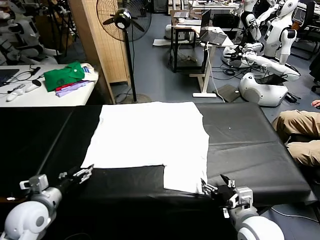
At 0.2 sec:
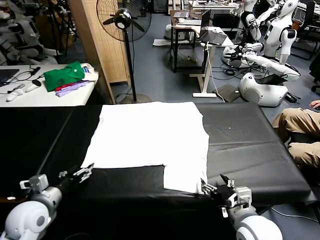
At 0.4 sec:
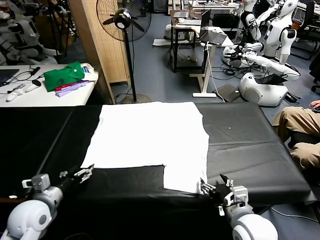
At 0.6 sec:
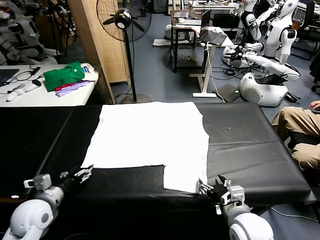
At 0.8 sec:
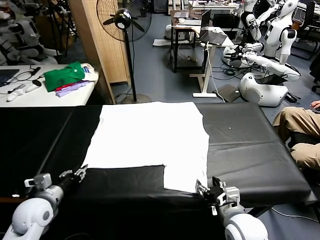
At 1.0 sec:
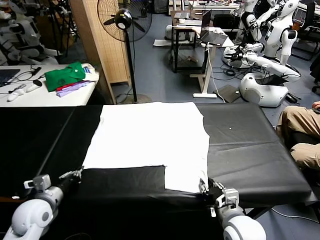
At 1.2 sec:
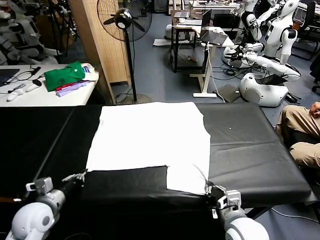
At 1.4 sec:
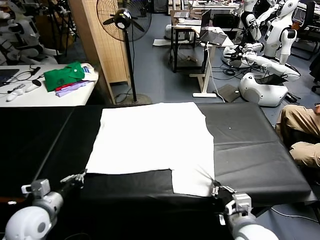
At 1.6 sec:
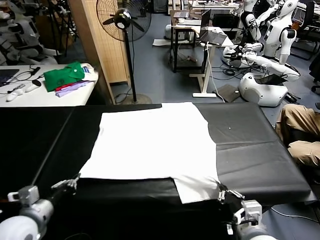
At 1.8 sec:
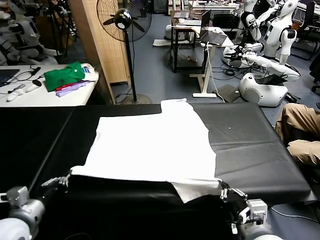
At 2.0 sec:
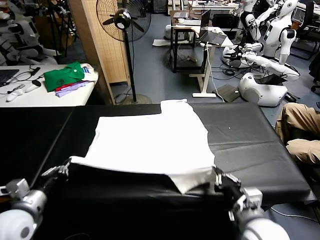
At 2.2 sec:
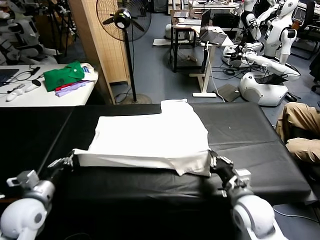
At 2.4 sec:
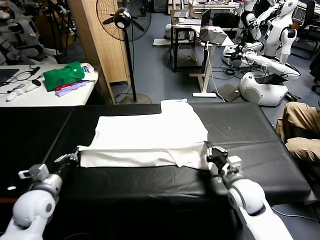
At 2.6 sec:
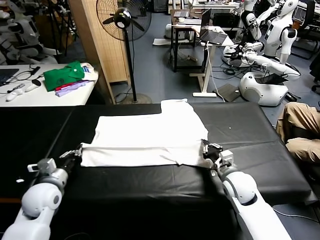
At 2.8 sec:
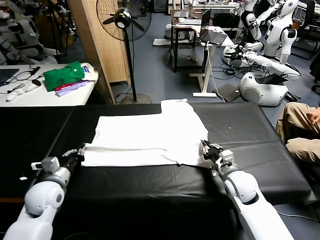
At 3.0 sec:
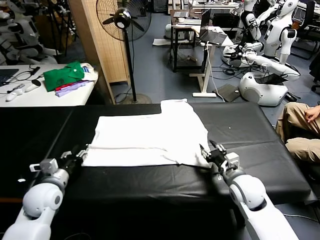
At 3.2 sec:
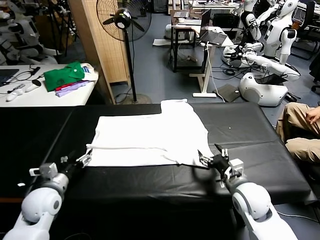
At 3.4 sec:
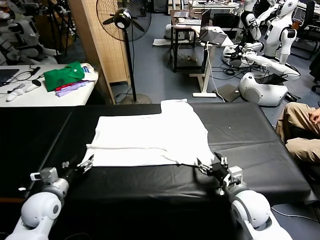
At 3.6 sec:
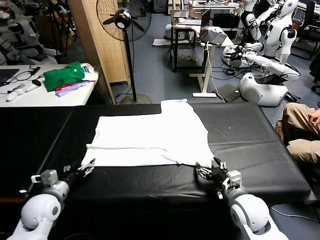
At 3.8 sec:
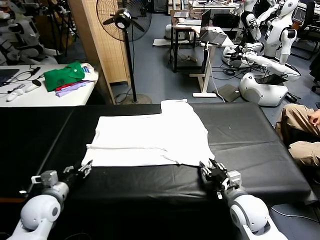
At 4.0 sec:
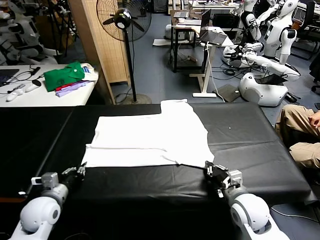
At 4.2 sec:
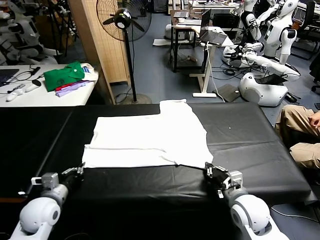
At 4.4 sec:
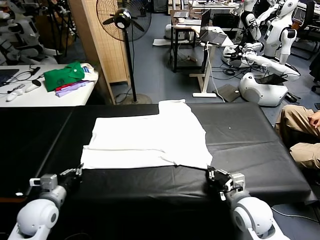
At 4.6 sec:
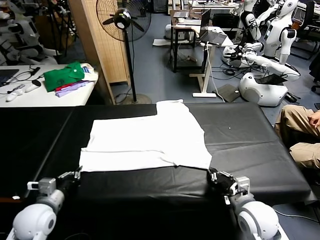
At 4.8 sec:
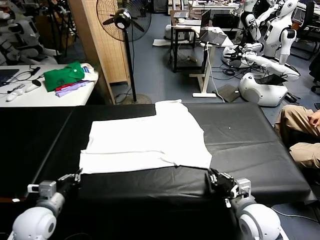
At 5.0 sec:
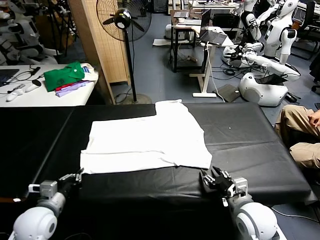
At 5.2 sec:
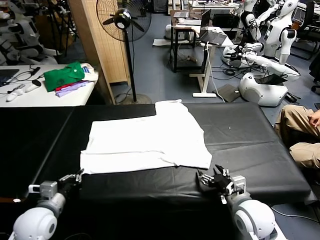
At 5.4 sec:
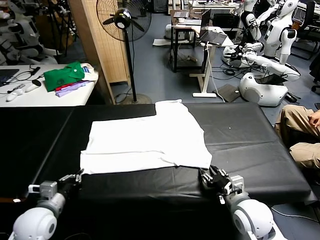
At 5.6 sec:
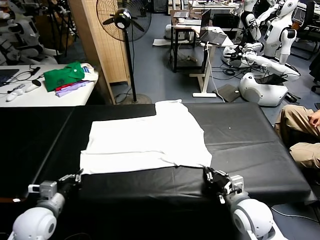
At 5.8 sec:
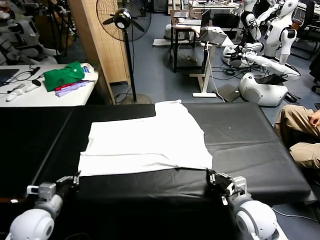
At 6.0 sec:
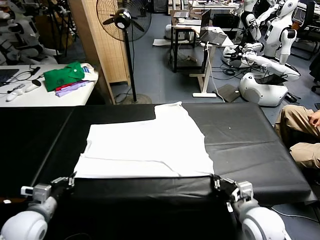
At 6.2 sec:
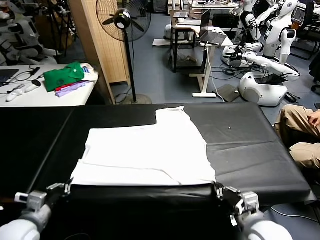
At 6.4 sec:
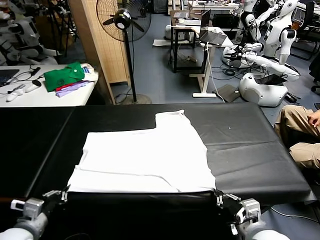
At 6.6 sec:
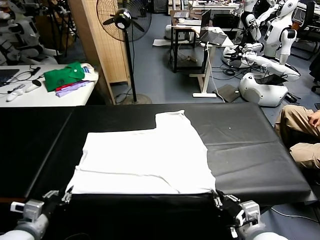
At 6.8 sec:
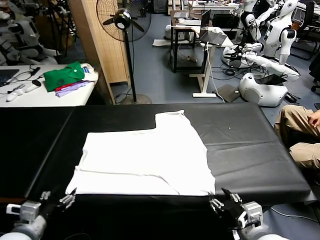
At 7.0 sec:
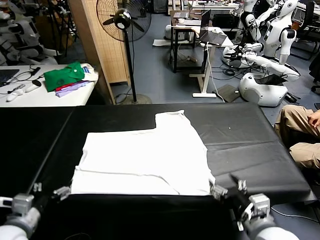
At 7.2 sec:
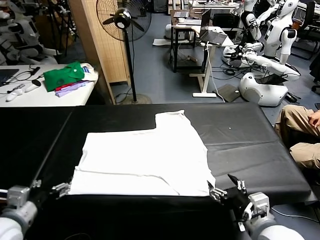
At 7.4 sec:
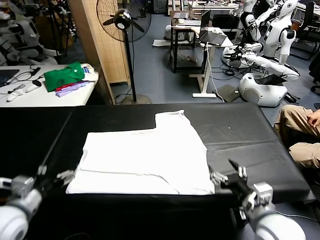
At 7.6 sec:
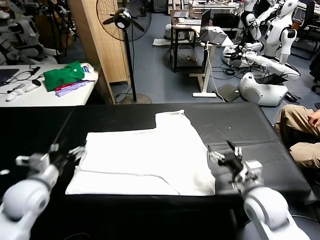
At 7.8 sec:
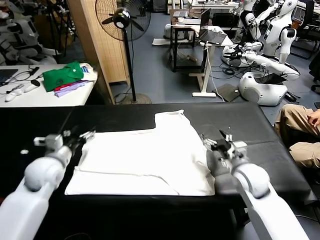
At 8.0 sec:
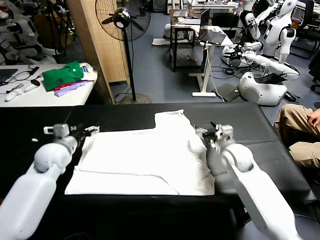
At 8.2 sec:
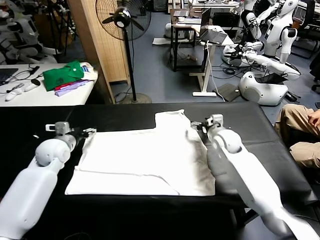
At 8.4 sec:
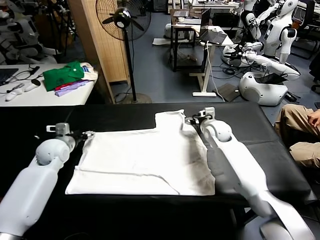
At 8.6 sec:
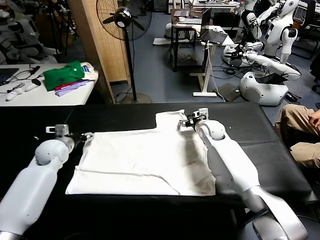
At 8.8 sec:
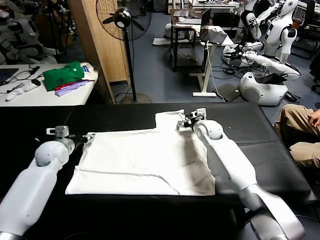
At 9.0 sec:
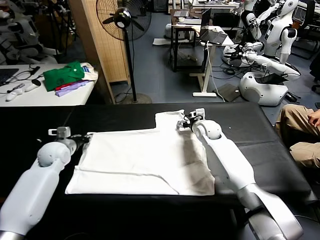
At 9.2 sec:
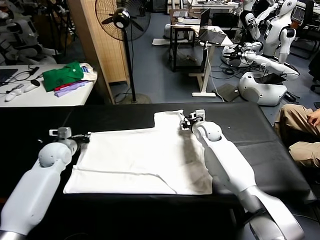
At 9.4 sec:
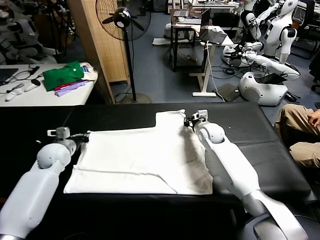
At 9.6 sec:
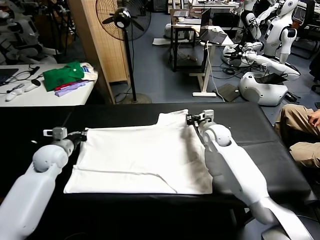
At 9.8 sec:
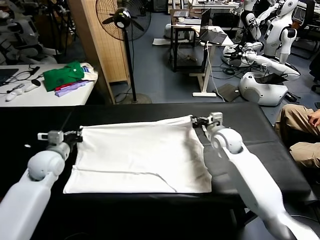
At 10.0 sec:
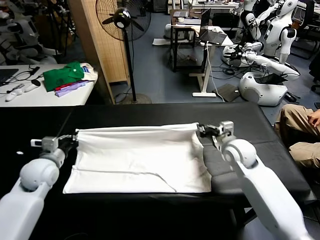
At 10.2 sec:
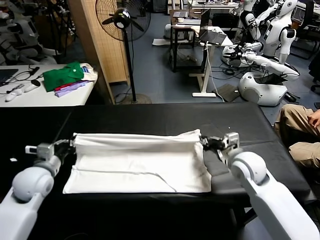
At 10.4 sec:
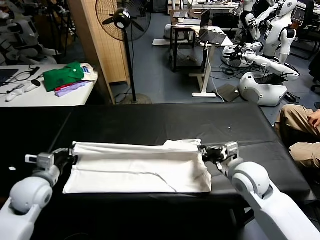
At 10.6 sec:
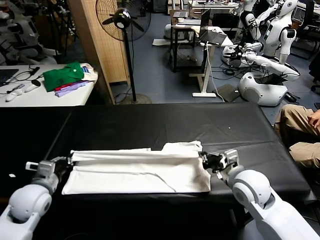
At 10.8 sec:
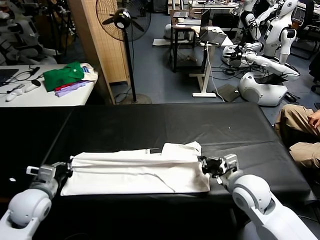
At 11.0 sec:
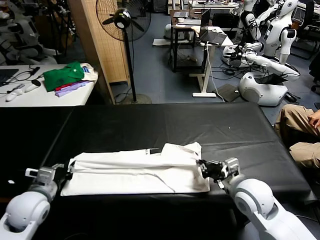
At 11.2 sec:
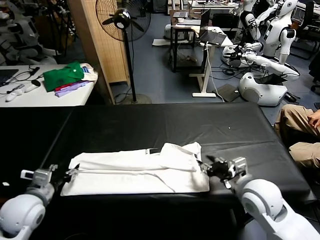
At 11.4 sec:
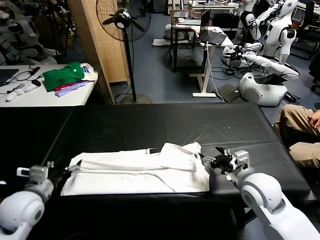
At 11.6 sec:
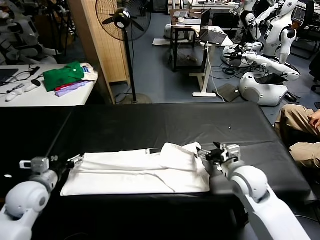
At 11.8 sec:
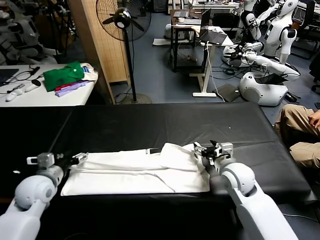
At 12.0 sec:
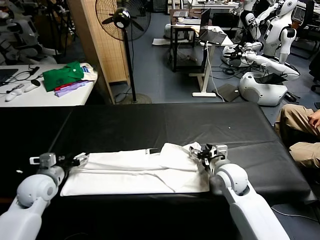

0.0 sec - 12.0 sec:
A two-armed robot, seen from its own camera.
Task of the whole recording: fold and organize the clothes.
Step, 0.0 sec - 1.2 sec: use both grippers simultaneously to clamp the lower edge of the clothing fabric.
Step, 1.4 sec - 2.8 sec: use both grippers to drag the lower edge of the fabric forward and fold it over the upper edge.
Step, 3.0 sec - 6.6 sec: Drag the clothes downward with both gripper.
Step, 6.8 sec - 9.2 sec: use both grippers simultaneously to clamp the upper edge of the clothing fabric.
Step, 9.4 sec - 11.0 sec: use both grippers to drag the upper edge of the fabric backward and fold it over the lower edge.
1.6 sec - 3.0 sec: The left gripper moves forward, roughly 10 cm, and opens up, while the right gripper is displaced forward and downward by roughly 15 cm, and opens up.
3.0 sec - 4.4 sec: The right gripper moves backward, some 5 cm, and closes. The left gripper closes.
4.4 sec - 6.0 sec: The right gripper moves backward, about 5 cm, and opens, then closes once more.
6.0 sec - 7.6 sec: The left gripper moves upward and forward, roughly 10 cm, and opens up, while the right gripper shifts about 15 cm forward, and opens its fingers.
7.6 sec - 9.0 sec: Both grippers move forward, approximately 20 cm. The left gripper closes its fingers.
9.0 sec - 10.4 sec: The left gripper travels backward by approximately 15 cm. The right gripper shifts some 25 cm backward, and closes up.
10.4 sec - 12.0 sec: The left gripper opens. The right gripper goes approximately 5 cm downward, and opens.

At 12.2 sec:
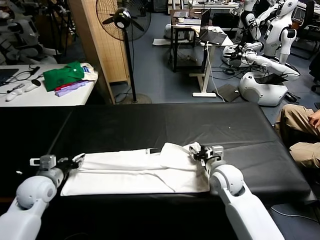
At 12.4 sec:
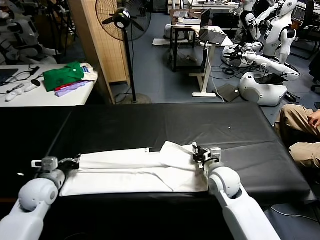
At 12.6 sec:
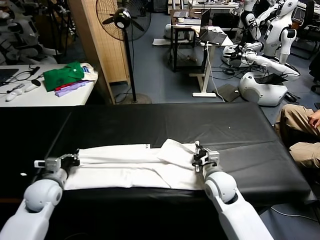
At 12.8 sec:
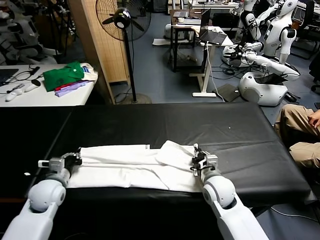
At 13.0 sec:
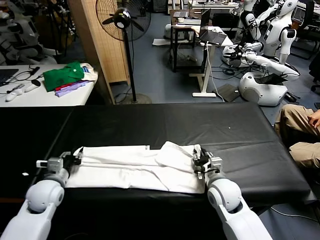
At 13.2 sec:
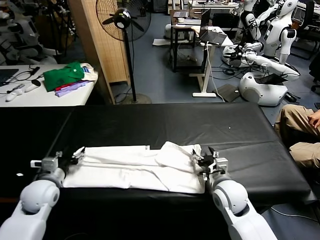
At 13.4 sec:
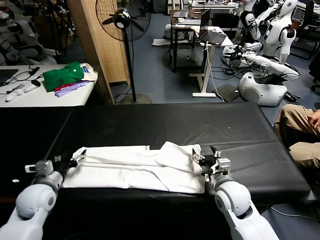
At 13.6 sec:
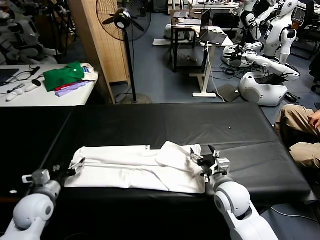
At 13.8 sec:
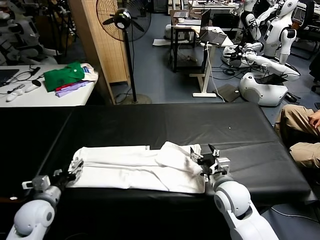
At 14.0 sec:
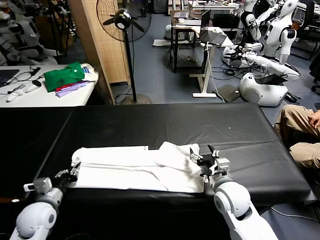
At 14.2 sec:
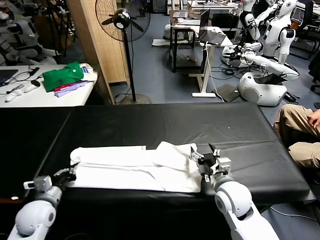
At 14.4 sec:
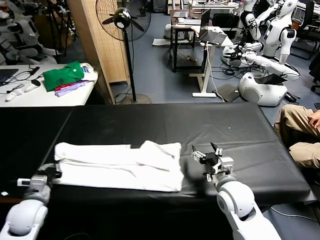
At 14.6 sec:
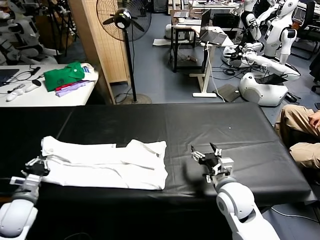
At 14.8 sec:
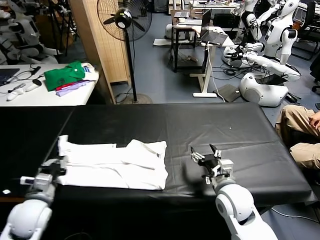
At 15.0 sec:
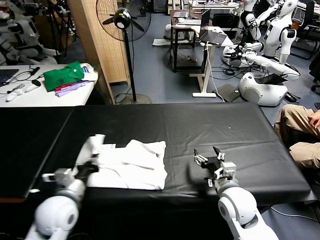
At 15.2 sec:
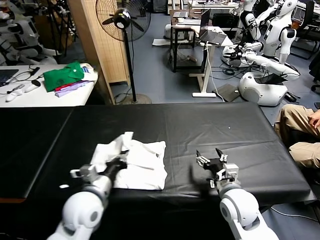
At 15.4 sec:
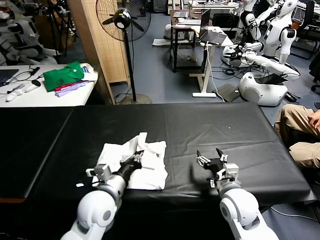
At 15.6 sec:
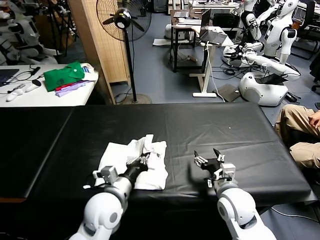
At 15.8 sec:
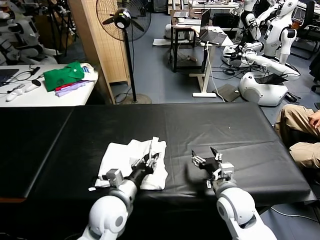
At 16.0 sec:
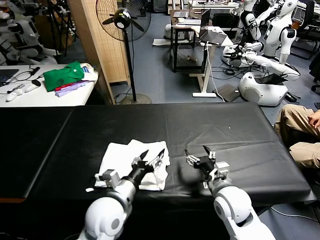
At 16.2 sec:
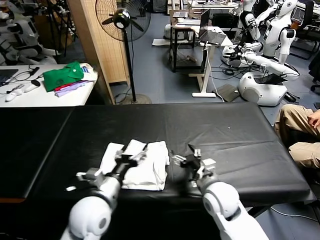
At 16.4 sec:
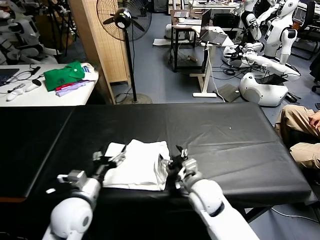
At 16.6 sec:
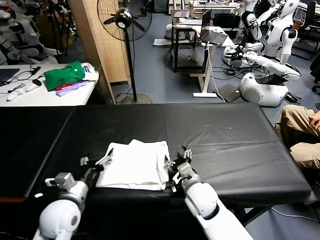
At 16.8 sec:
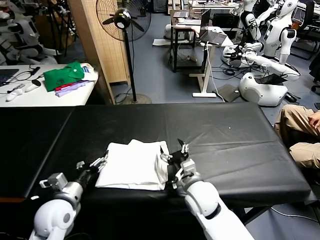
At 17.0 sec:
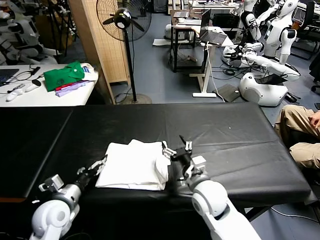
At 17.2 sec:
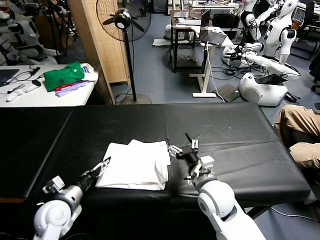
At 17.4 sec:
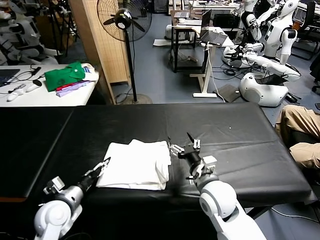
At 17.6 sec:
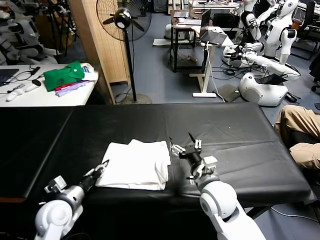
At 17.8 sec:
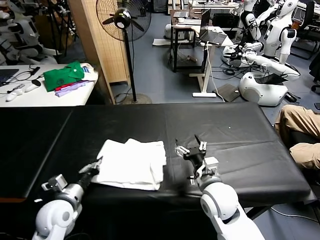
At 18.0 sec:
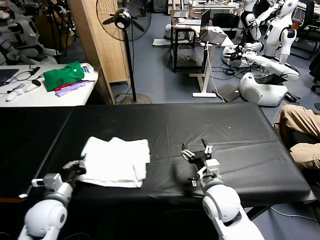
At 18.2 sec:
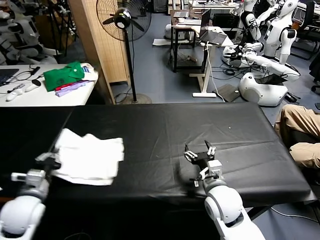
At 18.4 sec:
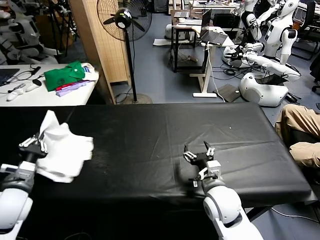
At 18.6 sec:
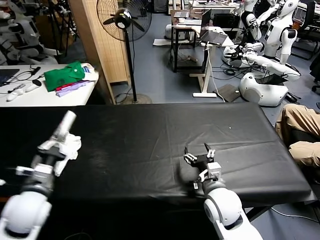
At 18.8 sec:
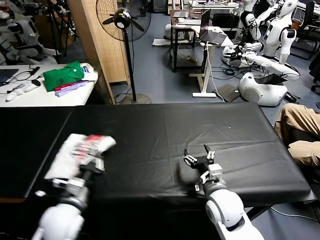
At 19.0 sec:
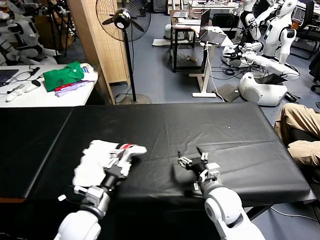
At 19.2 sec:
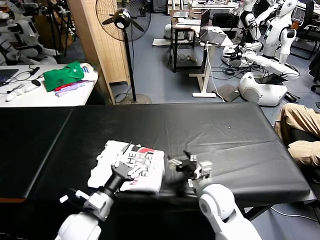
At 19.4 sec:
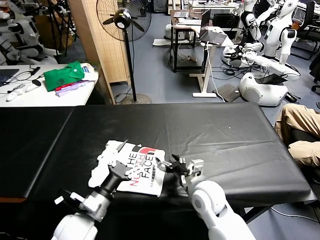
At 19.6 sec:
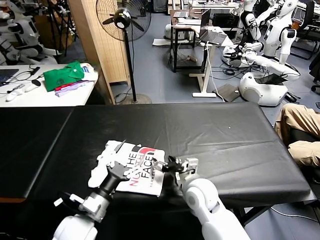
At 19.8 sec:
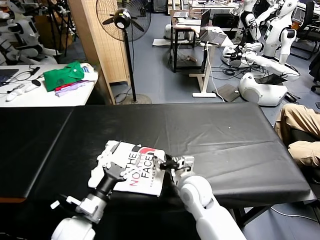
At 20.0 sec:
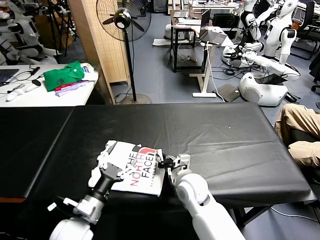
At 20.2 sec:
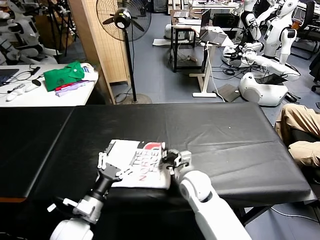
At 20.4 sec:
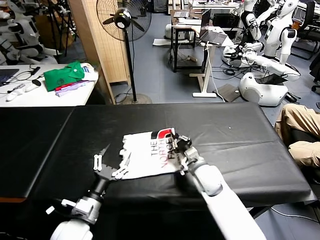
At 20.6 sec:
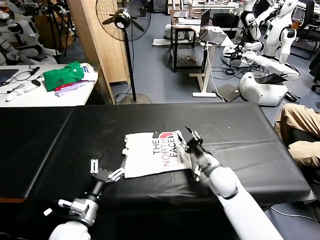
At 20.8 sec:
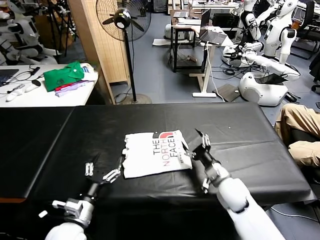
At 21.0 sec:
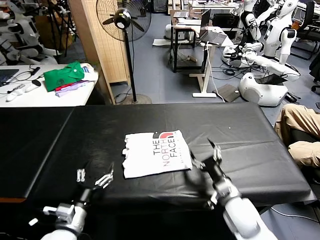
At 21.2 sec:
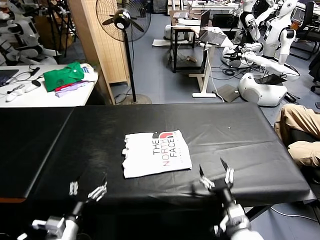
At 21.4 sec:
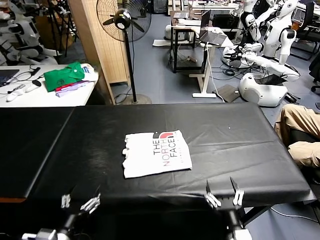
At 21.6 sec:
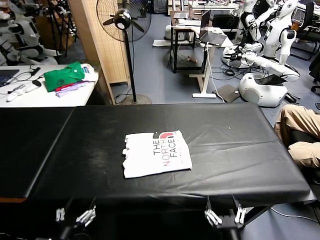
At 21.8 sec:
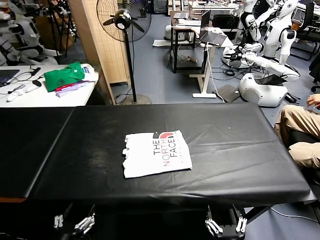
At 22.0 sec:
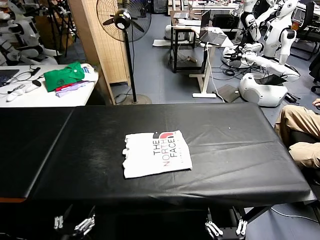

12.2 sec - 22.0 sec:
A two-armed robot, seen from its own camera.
Task of the whole recording: fold and organize the clothes.
Step, 12.2 sec - 14.0 sec: use the left gripper to clamp the left edge of the fabric.
Step, 14.4 sec - 15.8 sec: use the left gripper to drag the left edge of the fabric to the left and folds it over the right edge.
Step, 16.0 sec - 19.0 sec: Flip the folded clothes over with left gripper.
Step, 19.2 sec - 20.4 sec: Drag the clothes to the center of the table.
12.2 sec - 13.6 sec: The right gripper travels backward by about 5 cm, and opens its fingers. Meanwhile the left gripper changes place by roughly 5 cm, and opens its fingers.
13.6 sec - 15.0 sec: The left gripper goes approximately 10 cm to the right, and closes.
15.0 sec - 16.4 sec: The left gripper is displaced to the right by roughly 5 cm, and opens up. The right gripper goes some 10 cm to the left.
16.4 sec - 17.8 sec: The right gripper changes place by roughly 5 cm. The left gripper heads to the left and downward, covering about 10 cm, and closes up.
17.8 sec - 19.2 sec: The left gripper is displaced to the right by approximately 10 cm, and opens its fingers.
19.2 sec - 20.6 sec: The left gripper opens up. The right gripper moves forward, approximately 10 cm, travels to the left and back again, roughly 5 cm each way, and closes up.
20.6 sec - 22.0 sec: The left gripper moves backward, about 15 cm. The right gripper heads backward, covering approximately 35 cm, and opens up.
